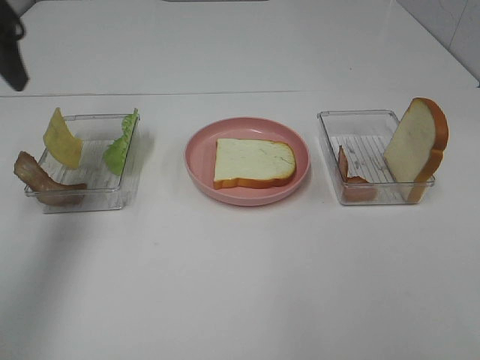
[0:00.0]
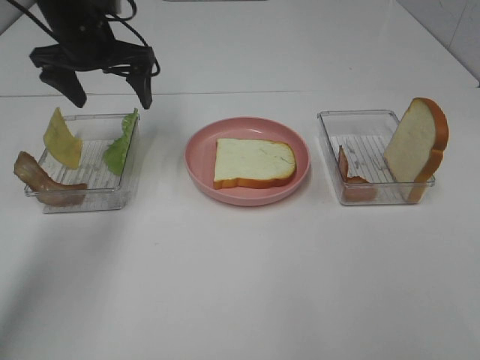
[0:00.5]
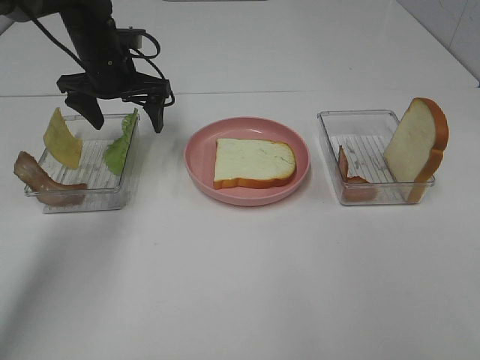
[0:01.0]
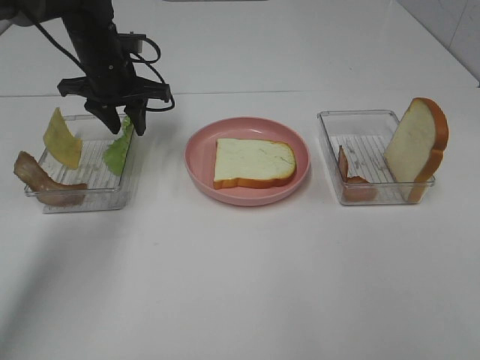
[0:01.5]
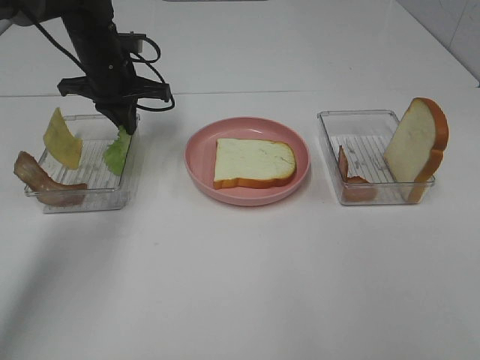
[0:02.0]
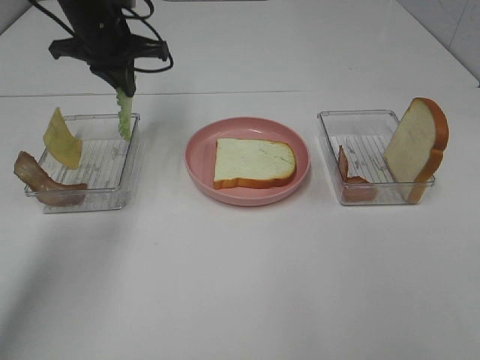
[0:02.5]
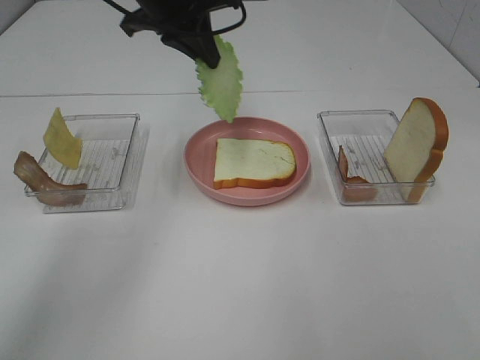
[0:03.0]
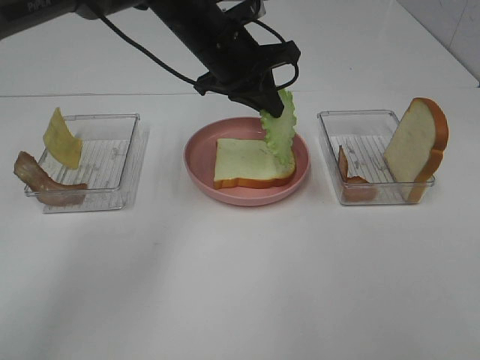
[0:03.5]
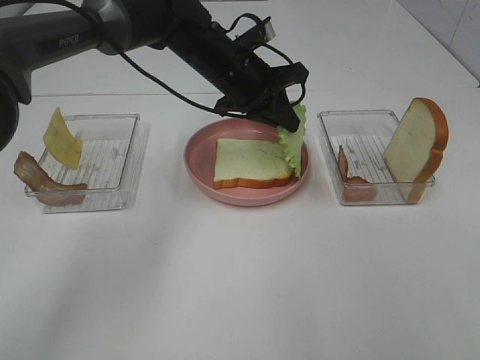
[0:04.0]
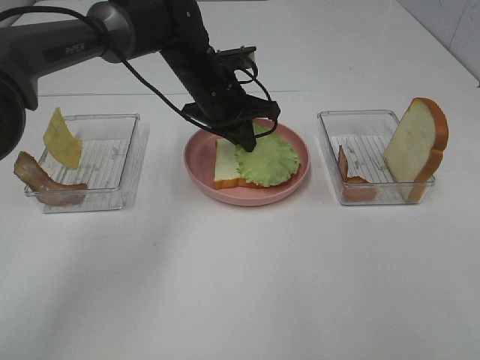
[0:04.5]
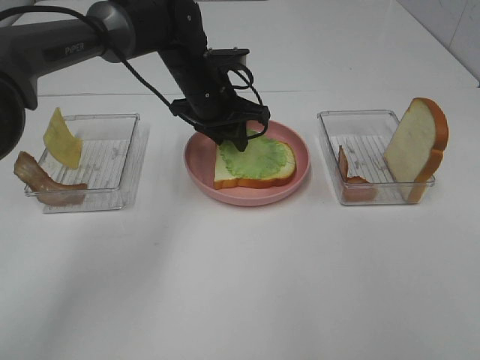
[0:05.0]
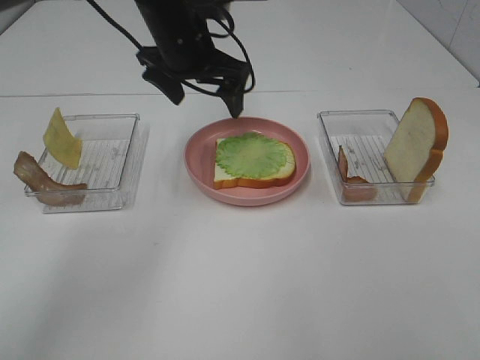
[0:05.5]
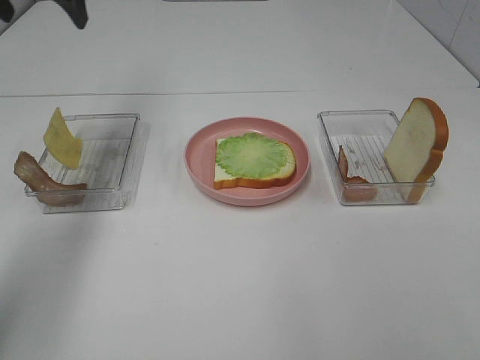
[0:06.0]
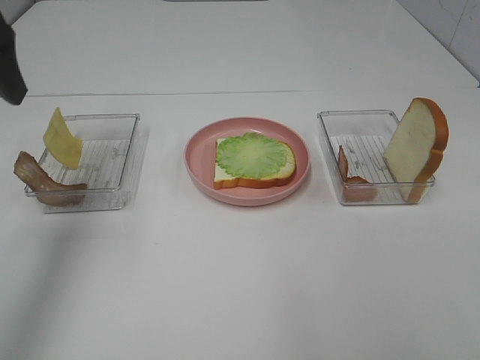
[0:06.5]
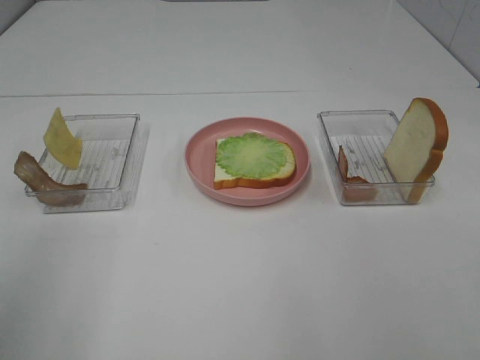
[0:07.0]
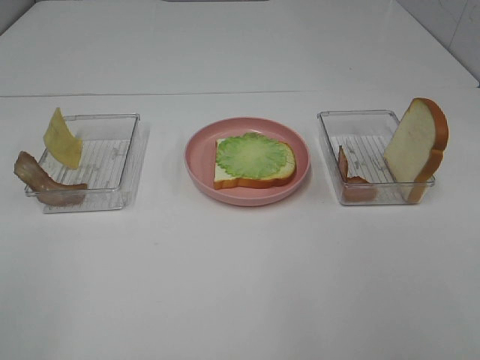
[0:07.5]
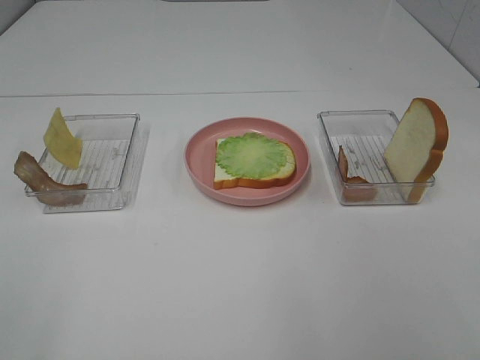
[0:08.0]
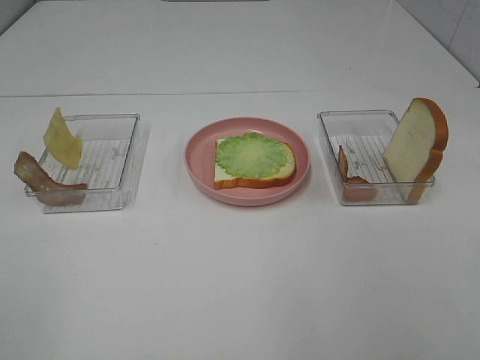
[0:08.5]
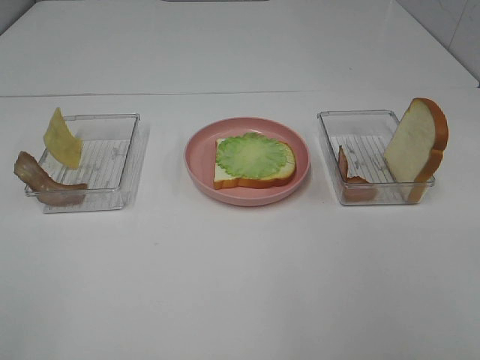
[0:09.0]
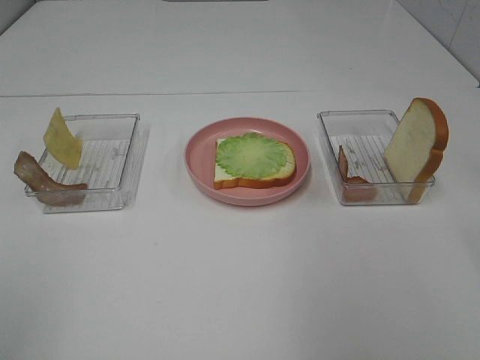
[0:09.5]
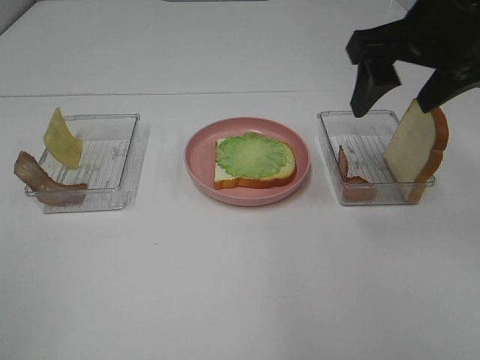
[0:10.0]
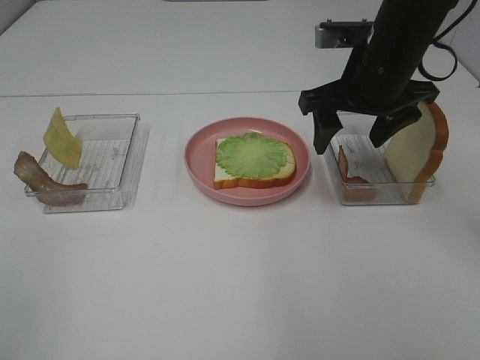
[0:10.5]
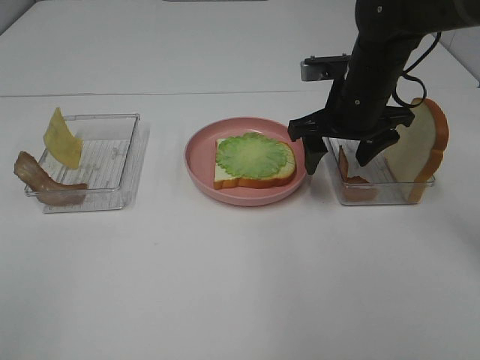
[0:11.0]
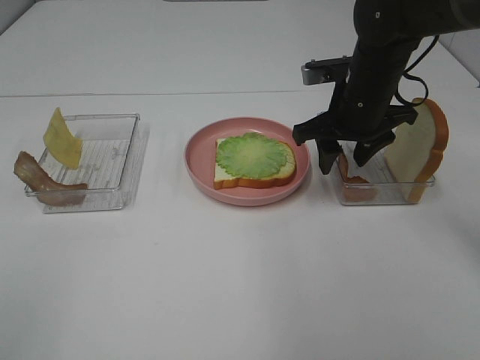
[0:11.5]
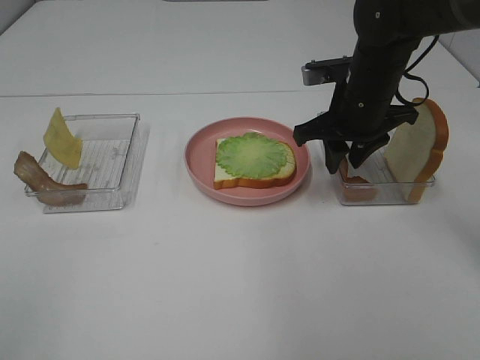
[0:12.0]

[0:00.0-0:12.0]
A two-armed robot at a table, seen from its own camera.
Task of the whole recording: Make sandwiches.
Step, 0:00.0 to 0:02.0: Left hand:grab the lettuce slice.
Step, 0:02.5 to 0:05.0: Left hand:place the lettuce slice on the bread slice.
0:00.0 to 0:02.0: The left gripper moves downward, forward and to the right, approximately 25 cm, and closes its fingers.
0:02.0 to 0:04.0: The left gripper travels to the right by some 15 cm.
0:04.0 to 0:06.0: The left gripper goes some 30 cm to the left and upward, and opens.
0:06.0 to 0:08.0: The left gripper shifts roughly 50 cm backward.
0:08.0 to 0:10.0: The right gripper goes some 30 cm forward.
0:10.0 to 0:12.0: The right gripper goes some 15 cm downward and forward, and closes its fingers.

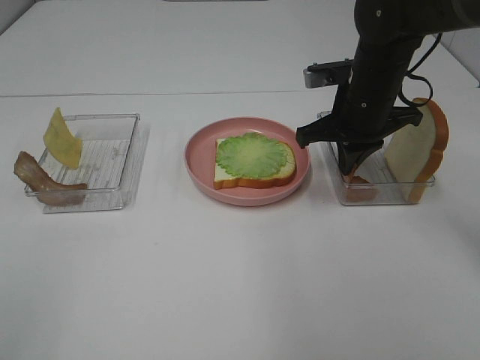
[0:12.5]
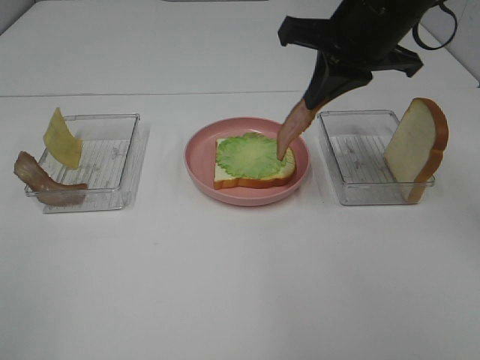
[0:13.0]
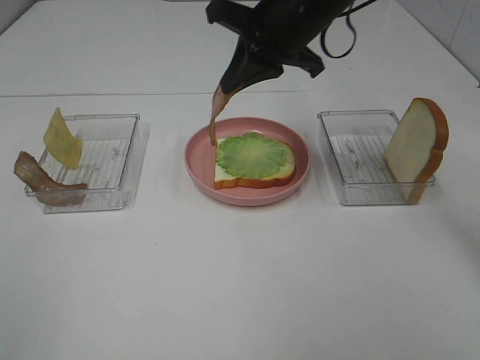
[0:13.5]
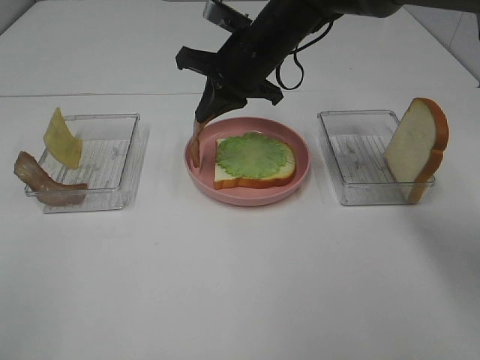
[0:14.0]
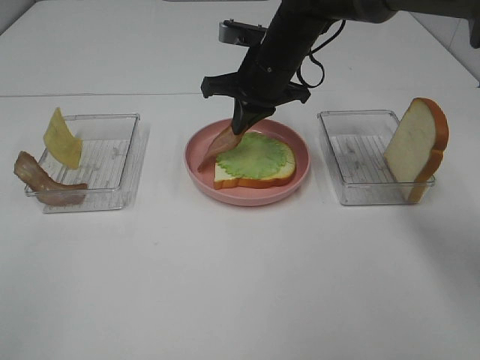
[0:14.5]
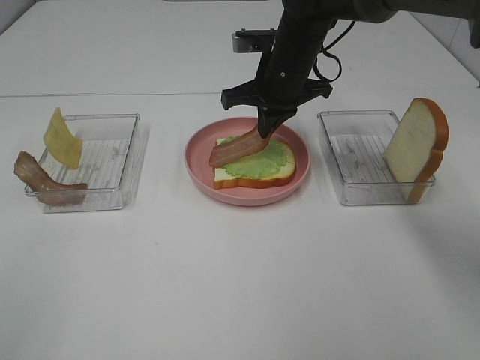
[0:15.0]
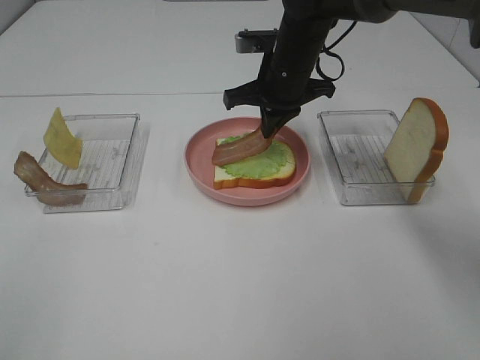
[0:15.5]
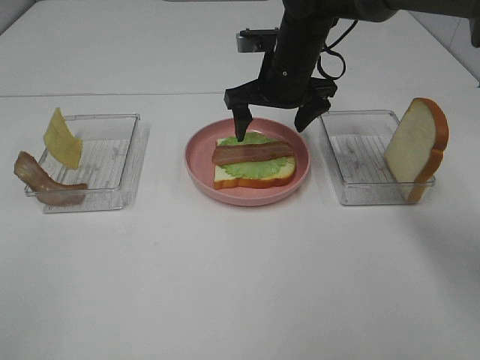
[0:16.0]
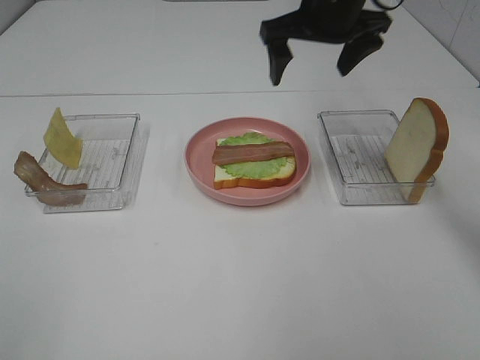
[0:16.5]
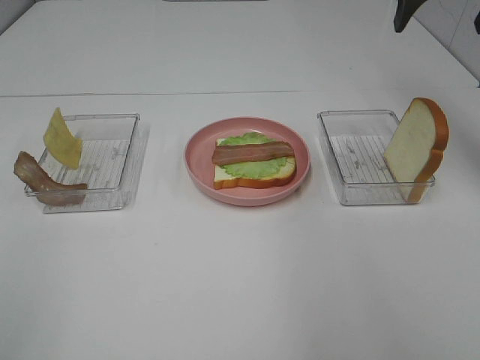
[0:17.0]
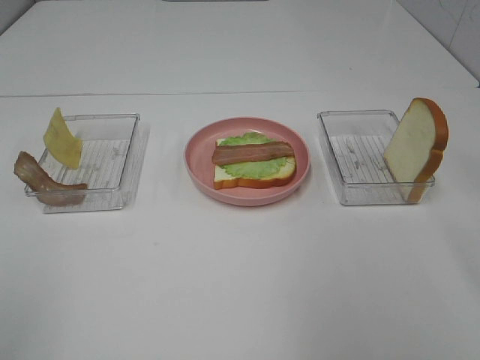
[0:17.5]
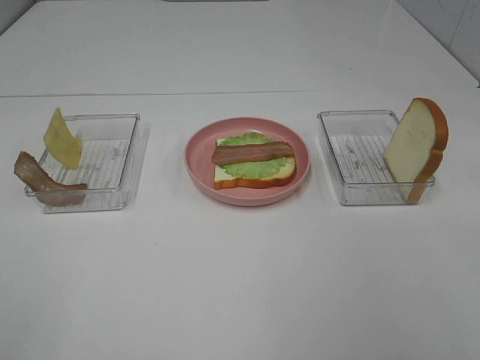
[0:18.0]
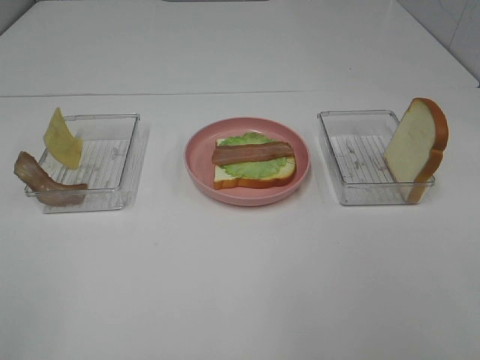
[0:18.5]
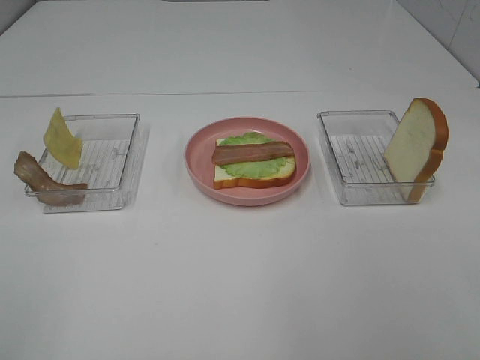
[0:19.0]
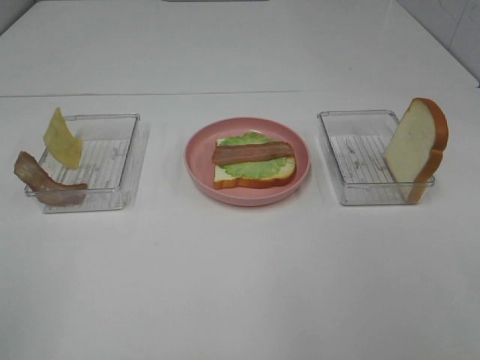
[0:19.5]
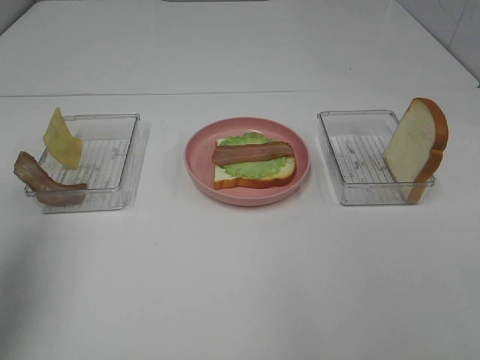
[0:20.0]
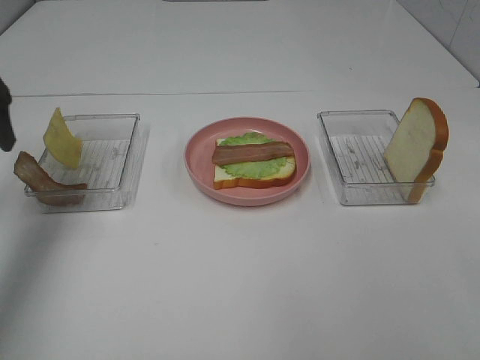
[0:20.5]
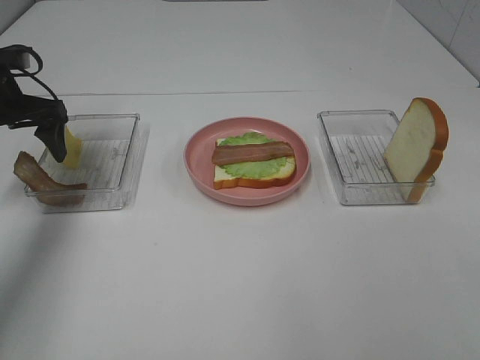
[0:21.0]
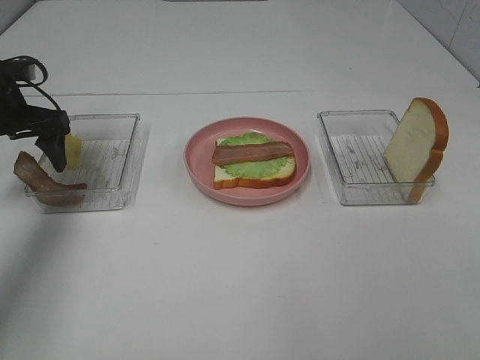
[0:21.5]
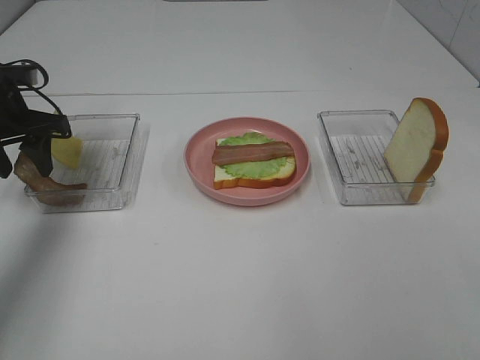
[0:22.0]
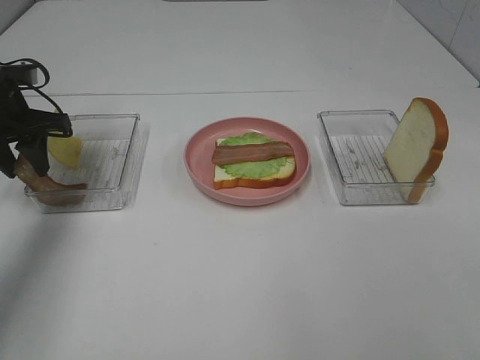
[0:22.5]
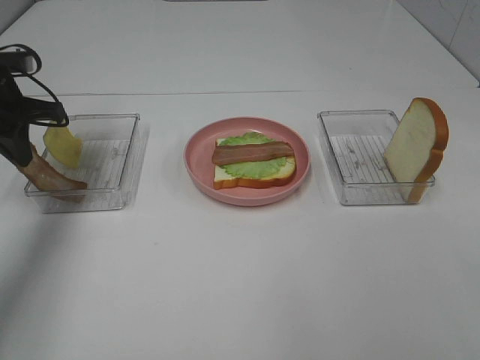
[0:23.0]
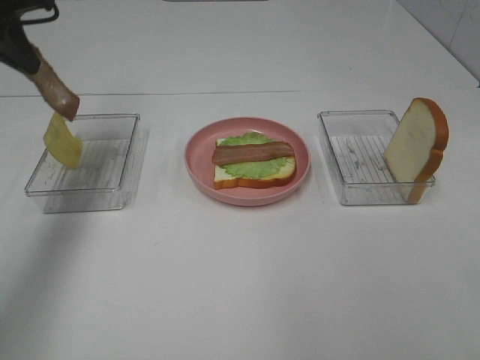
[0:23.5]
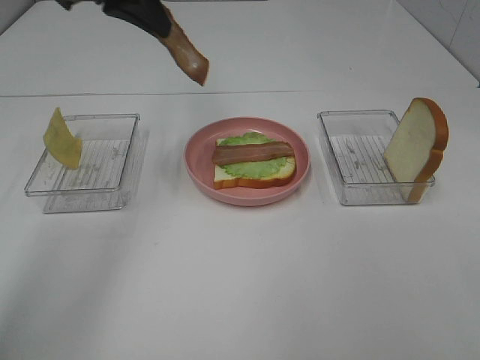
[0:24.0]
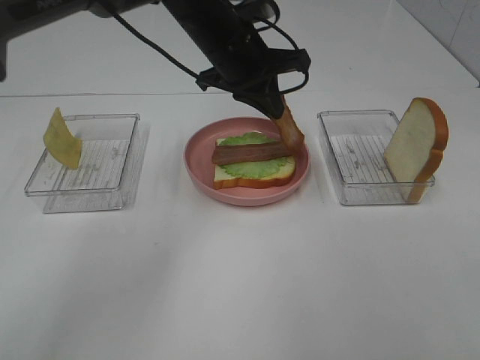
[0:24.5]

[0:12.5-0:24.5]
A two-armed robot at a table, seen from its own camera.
Task of the whole recording: Make sandwiches.
Step, 0:13.0 to 0:15.5: Right hand:place bacon on lettuce slice.
Step, 0:16.0 to 0:23.0: Left hand:grab the bacon.
0:12.5 to 0:14.5: The right gripper travels to the left and forward by approximately 10 cm.
0:14.5 to 0:16.5: The right gripper is displaced upward and to the right by roughly 10 cm, and opens.
0:16.5 to 0:18.5: The right gripper is displaced backward by roughly 40 cm.
0:18.5 to 0:20.5: The left gripper heads forward, covering approximately 35 cm.
0:20.5 to 0:22.5: The left gripper moves downward and forward, roughly 10 cm, and closes.
0:22.5 to 0:24.5: The left gripper travels to the right by roughly 30 cm, and closes.

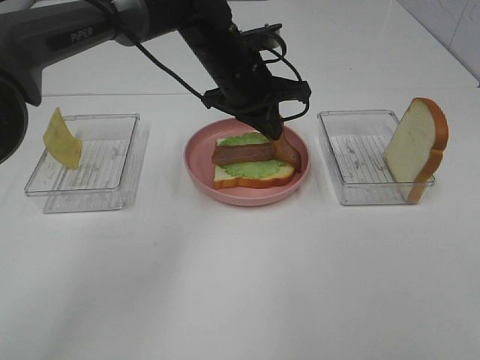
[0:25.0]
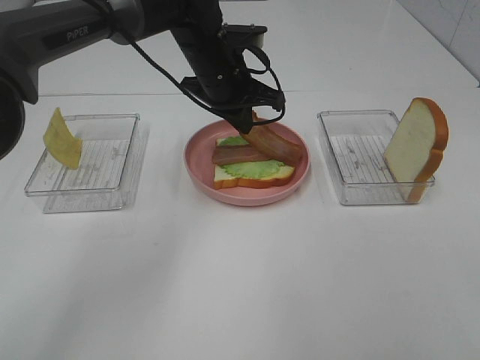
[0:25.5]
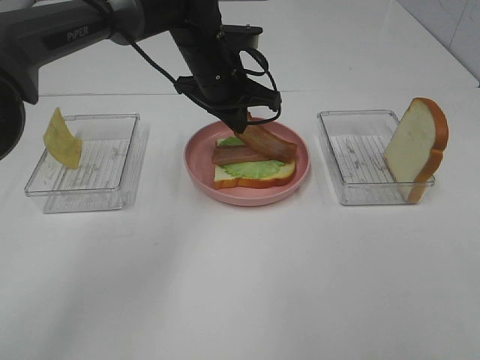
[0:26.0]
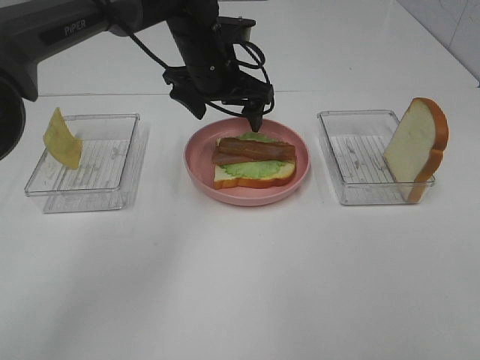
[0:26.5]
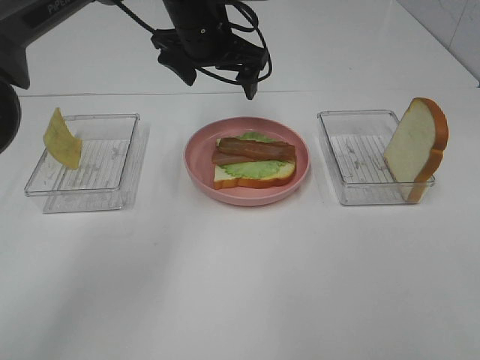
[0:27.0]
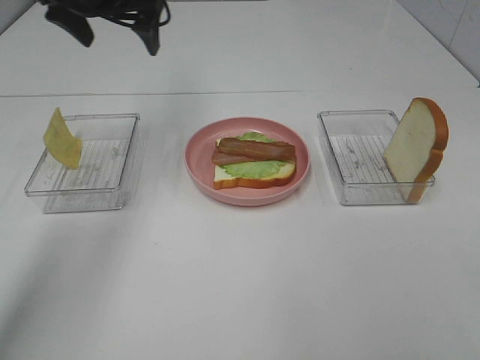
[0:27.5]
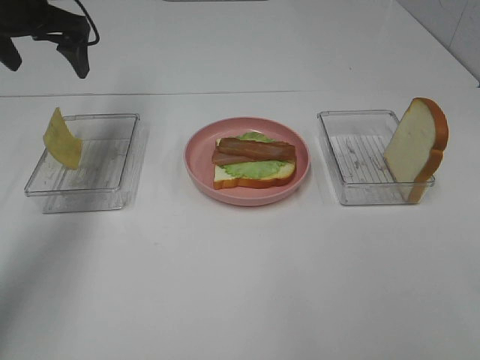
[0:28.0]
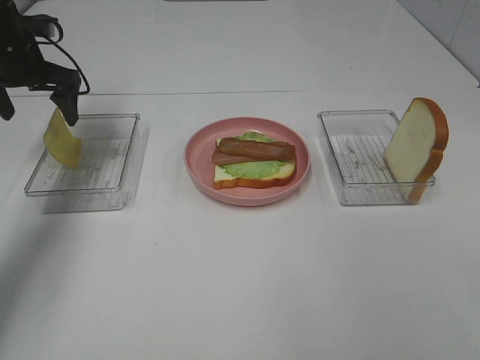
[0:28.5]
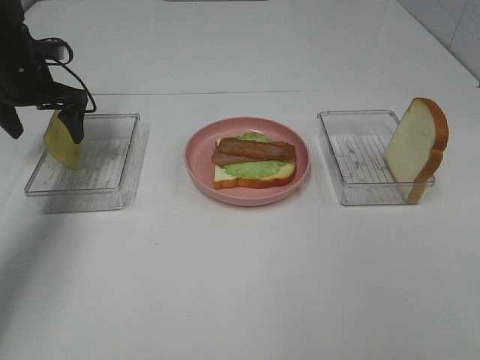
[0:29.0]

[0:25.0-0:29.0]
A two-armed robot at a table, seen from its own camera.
Task of the whole recording: Make sandwiches.
0:25.0 to 0:27.0: The left gripper goes approximately 5 cm upward, and opens its fingers.
0:27.0 to 0:29.0: The left gripper is displaced to the left by roughly 25 cm.
